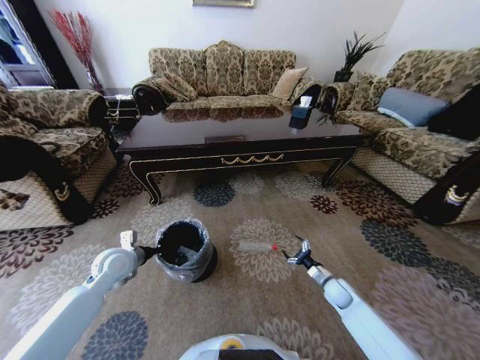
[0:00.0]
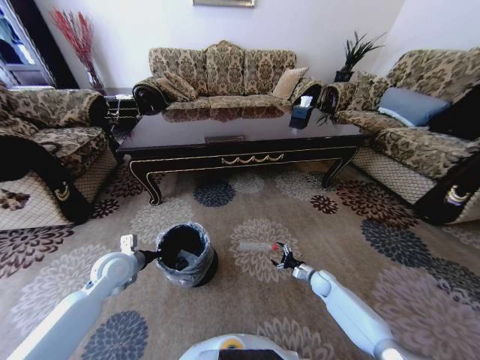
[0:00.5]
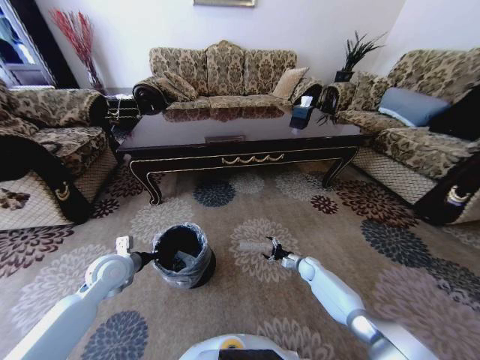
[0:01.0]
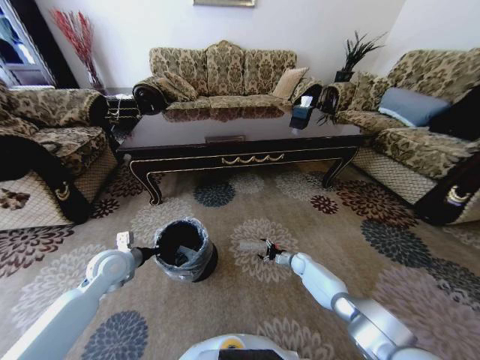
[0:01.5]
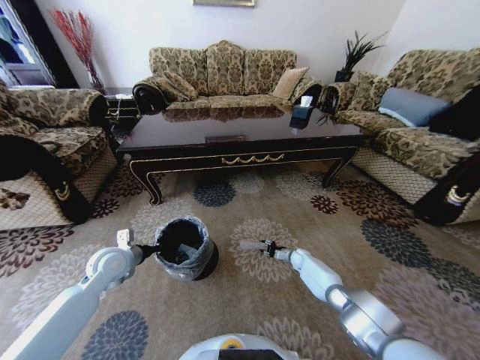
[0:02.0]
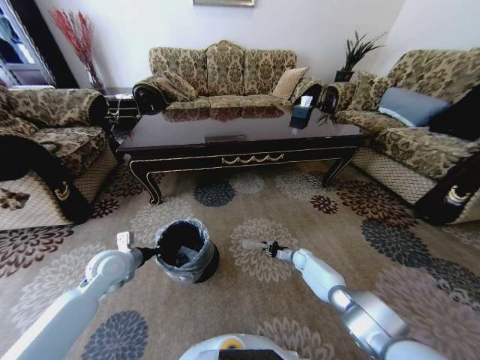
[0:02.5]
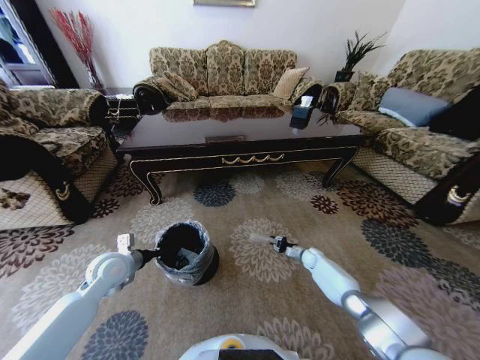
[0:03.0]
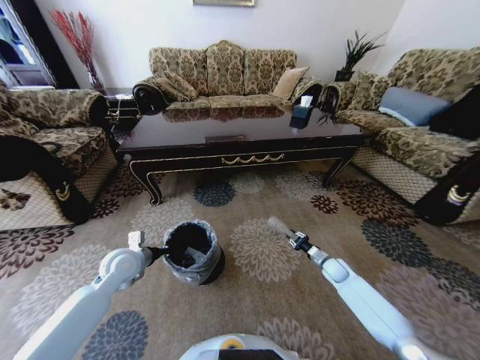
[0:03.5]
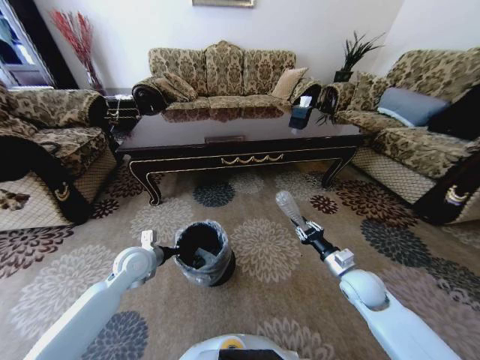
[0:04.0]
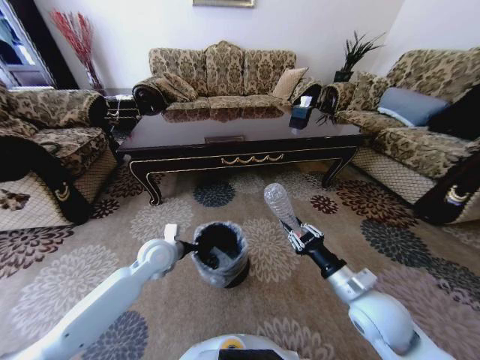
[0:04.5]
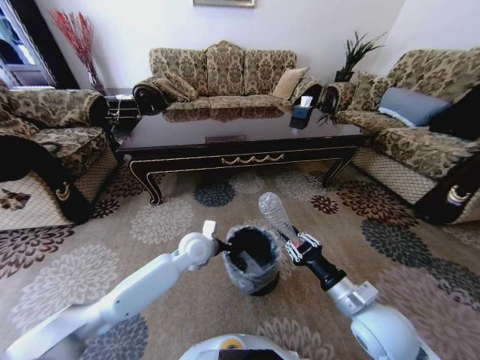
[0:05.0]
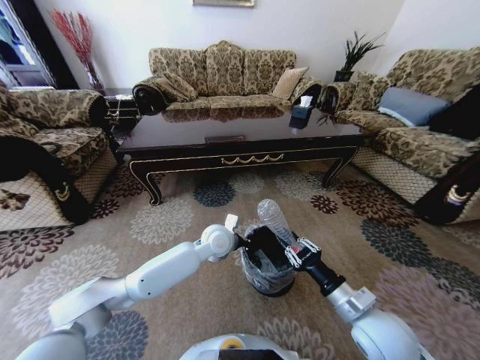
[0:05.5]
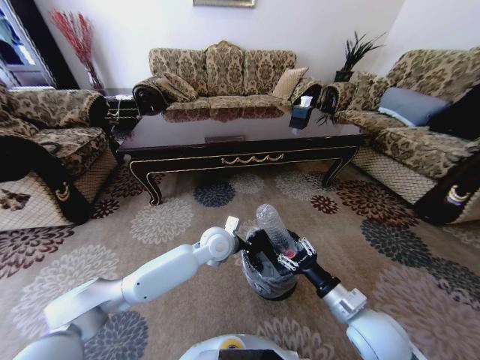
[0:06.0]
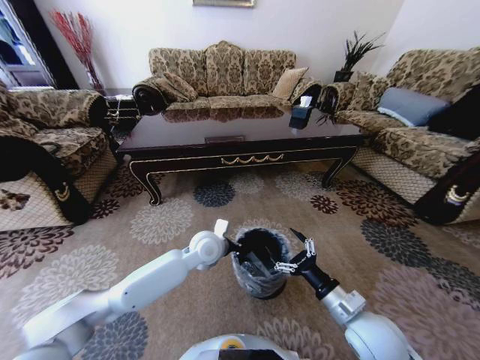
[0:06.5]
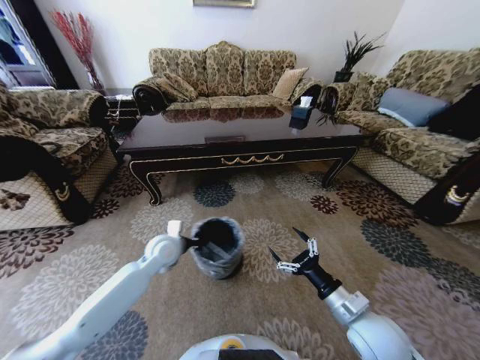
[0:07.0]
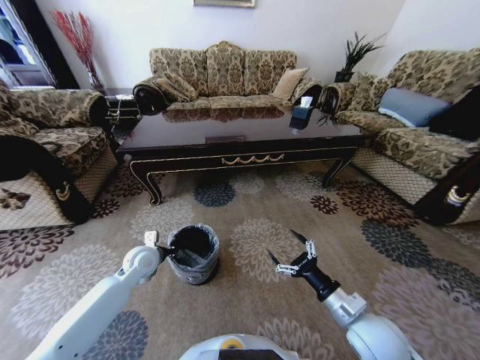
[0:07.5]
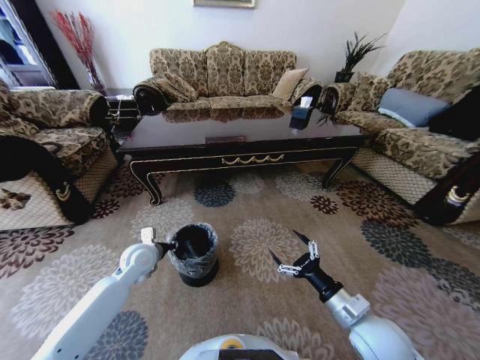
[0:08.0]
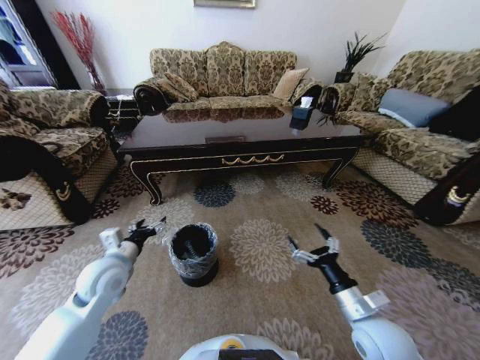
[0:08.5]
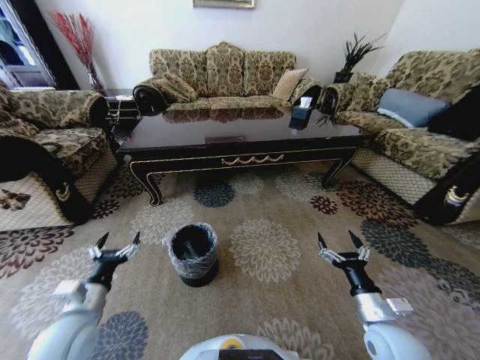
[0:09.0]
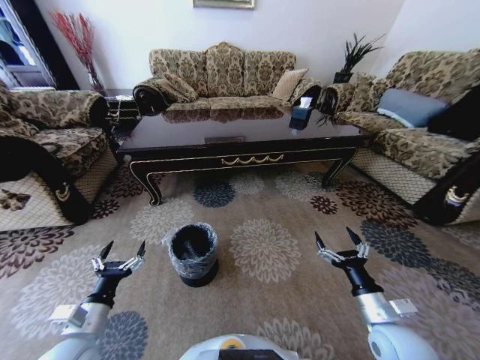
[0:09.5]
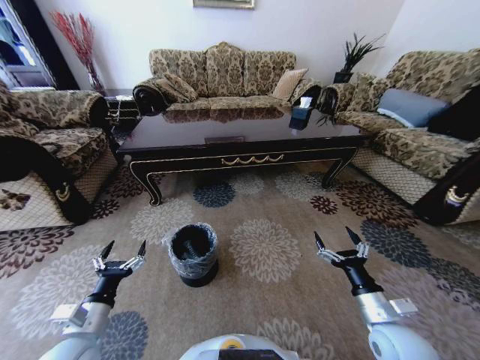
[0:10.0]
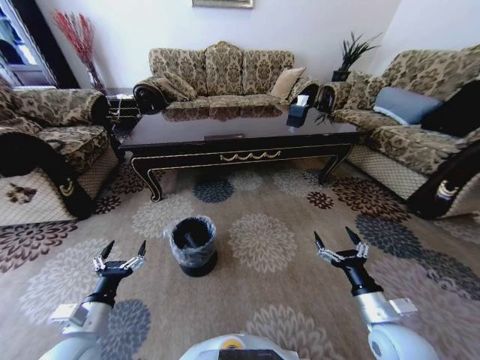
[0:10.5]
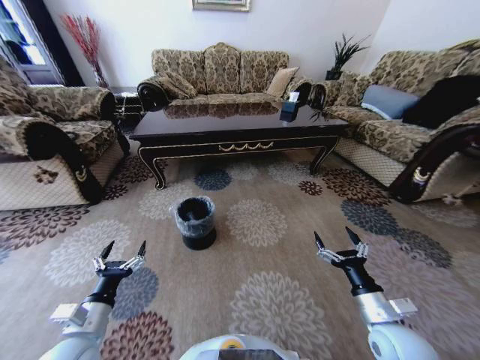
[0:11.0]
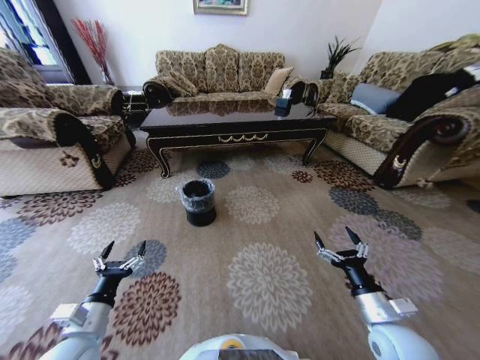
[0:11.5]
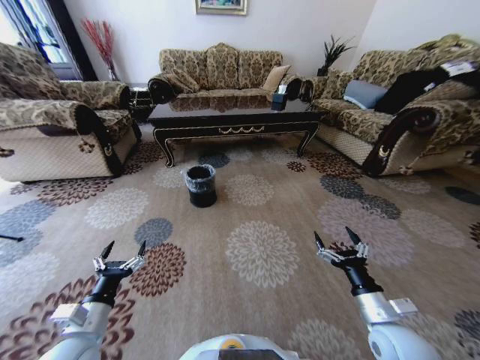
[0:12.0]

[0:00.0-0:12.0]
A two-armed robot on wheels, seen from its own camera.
Task of the whole recording: Move to the front of the table and pick up the trash from the floor, then place it into the trash bin.
0:00.0 to 0:02.0: The right gripper heads forward and downward, covering approximately 15 cm, and closes up.
0:02.0 to 0:04.0: The right gripper is displaced upward and backward by some 30 cm. Meanwhile the left gripper heads to the right, covering some 5 cm.
0:04.0 to 0:06.0: The right gripper is displaced backward, to the left and upward by about 15 cm. The left gripper shifts some 25 cm to the right.
0:06.0 to 0:08.0: The left gripper travels to the left by roughly 25 cm; the right gripper opens.
0:08.0 to 0:10.0: The right gripper is displaced to the right by approximately 5 cm. The left gripper travels backward by some 20 cm, and opens.
